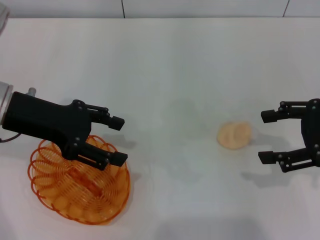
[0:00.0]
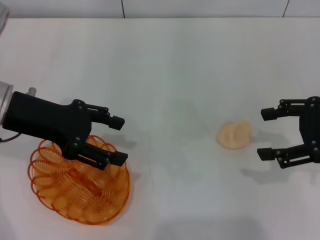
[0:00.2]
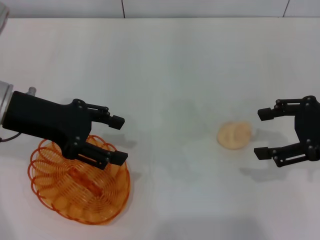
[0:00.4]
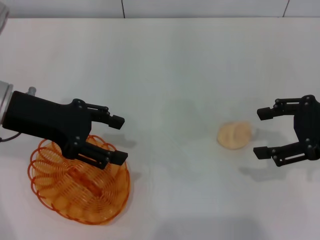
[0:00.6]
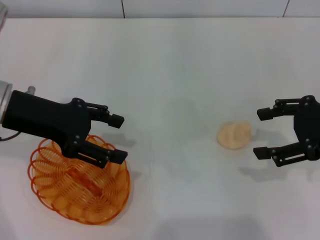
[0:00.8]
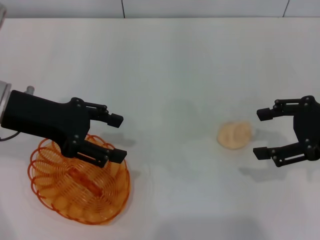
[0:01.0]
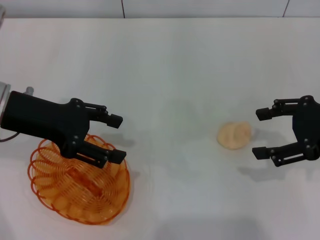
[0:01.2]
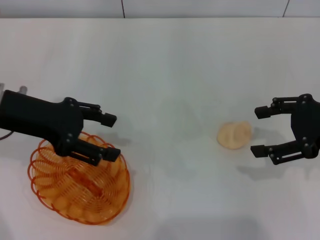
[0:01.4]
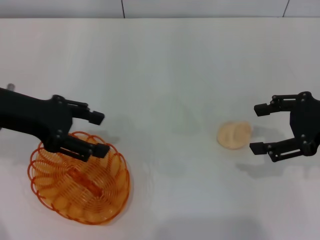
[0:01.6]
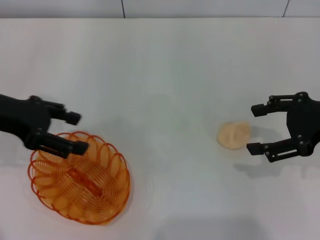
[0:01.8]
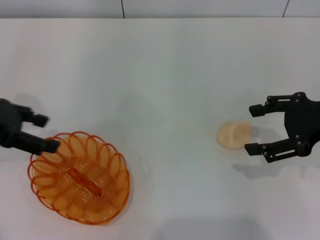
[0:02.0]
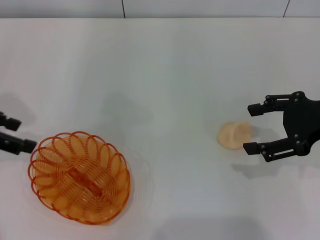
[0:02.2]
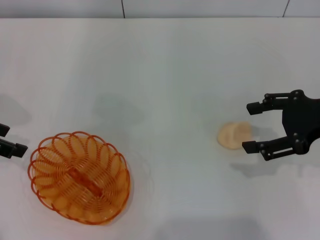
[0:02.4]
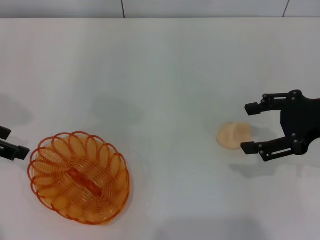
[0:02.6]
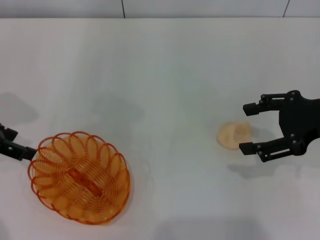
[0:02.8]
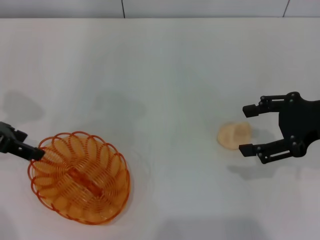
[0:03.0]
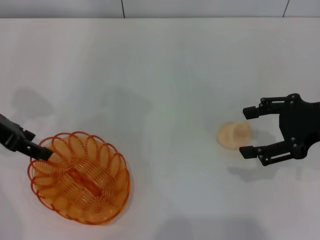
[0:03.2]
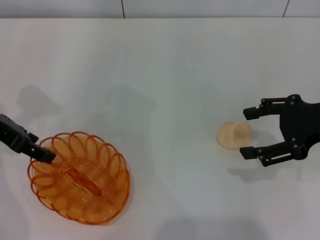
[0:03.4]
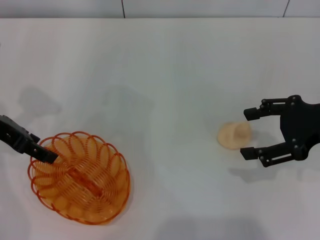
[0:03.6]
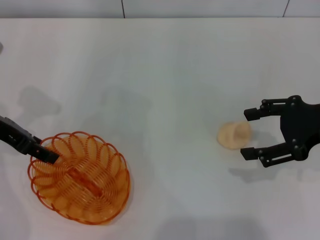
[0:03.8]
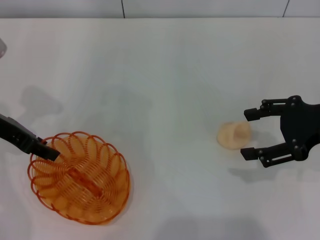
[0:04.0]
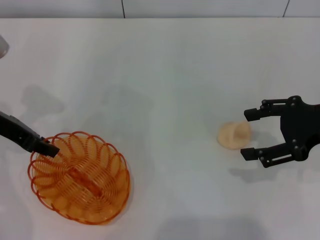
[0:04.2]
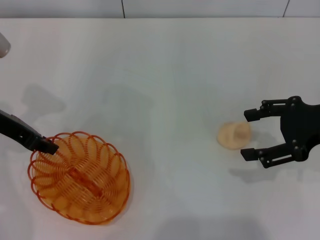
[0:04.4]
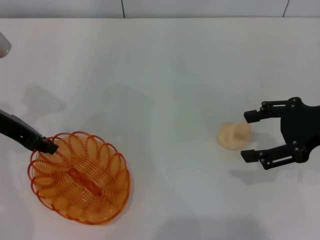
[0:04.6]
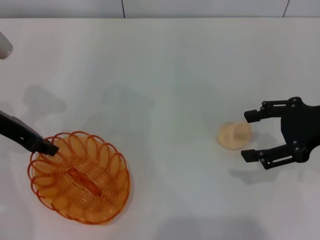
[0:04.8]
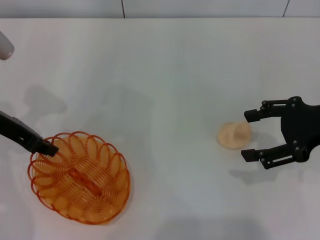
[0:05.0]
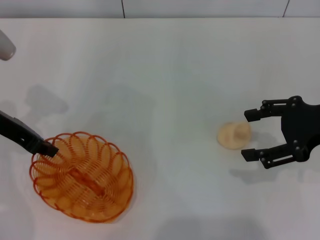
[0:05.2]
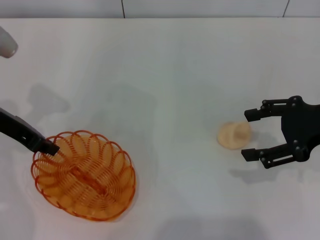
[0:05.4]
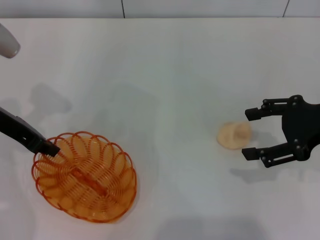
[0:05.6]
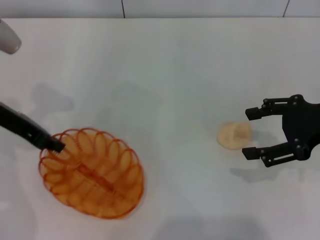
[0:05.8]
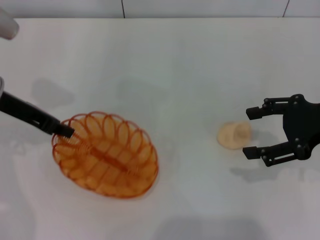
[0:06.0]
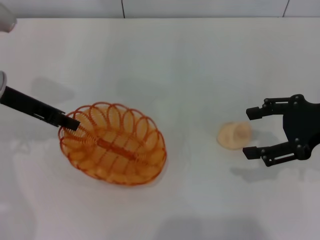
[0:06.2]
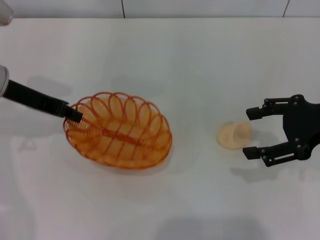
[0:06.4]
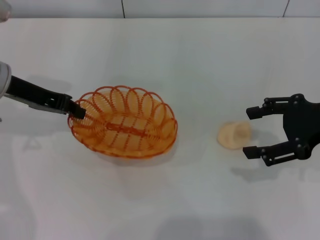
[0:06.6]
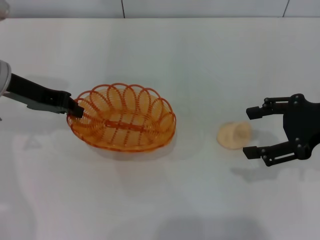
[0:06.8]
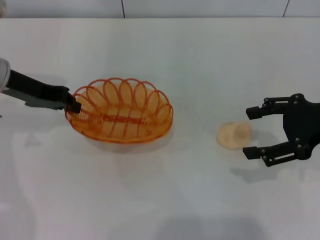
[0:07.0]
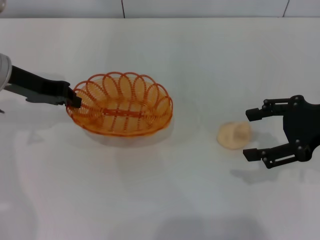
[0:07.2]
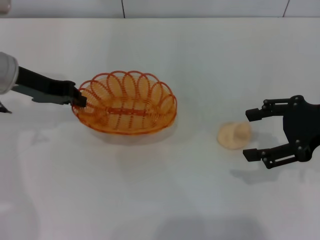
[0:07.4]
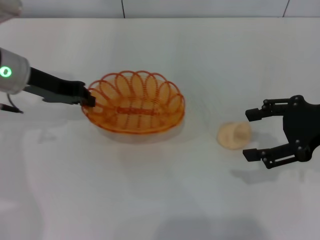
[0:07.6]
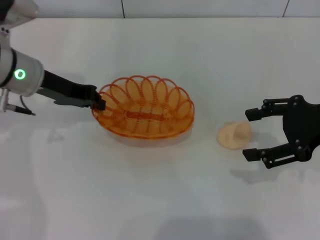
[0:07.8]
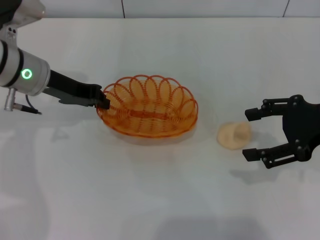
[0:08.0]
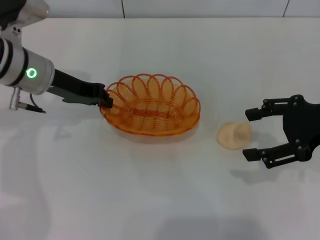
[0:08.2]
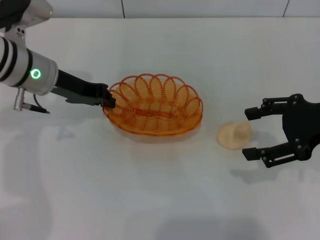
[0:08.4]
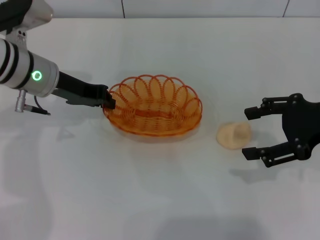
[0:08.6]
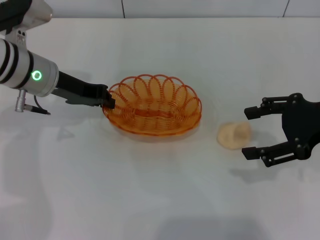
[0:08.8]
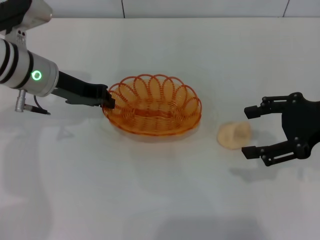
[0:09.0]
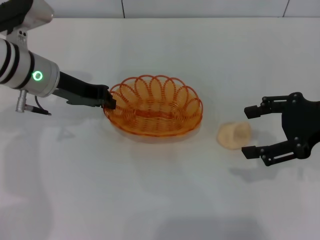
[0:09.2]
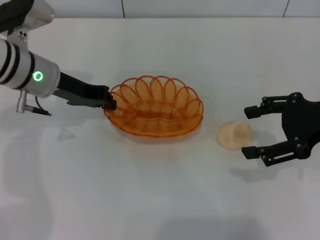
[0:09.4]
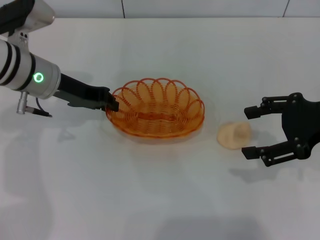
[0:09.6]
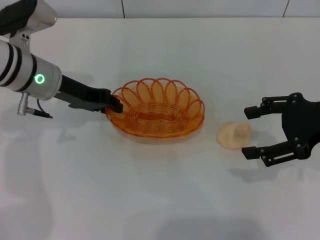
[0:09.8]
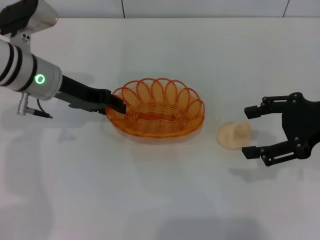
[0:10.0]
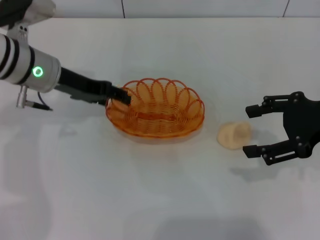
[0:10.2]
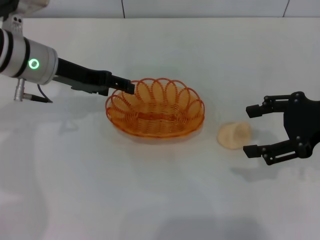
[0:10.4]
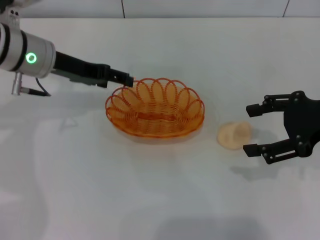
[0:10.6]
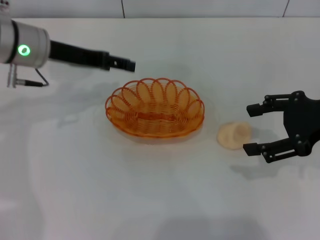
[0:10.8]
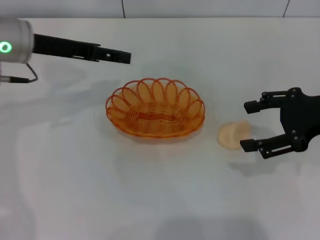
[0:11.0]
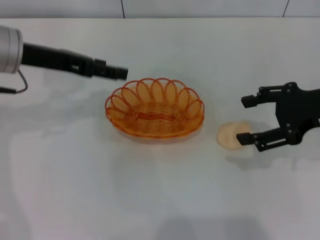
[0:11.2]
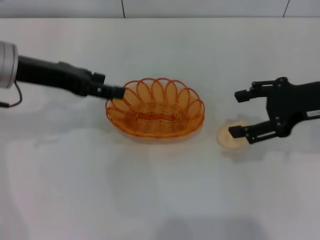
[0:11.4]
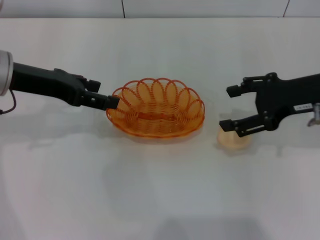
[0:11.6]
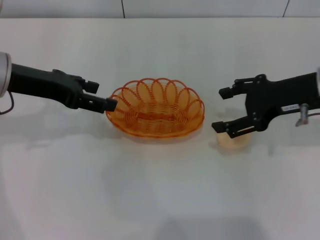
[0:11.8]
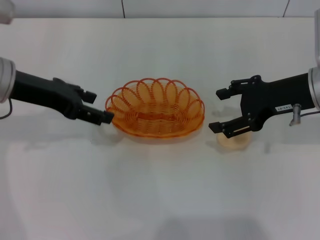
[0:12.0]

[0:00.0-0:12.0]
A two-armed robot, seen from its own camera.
Step, 0:00.0 to 0:06.8: Pick up the basket with the left gripper.
Step, 0:07.0 to 0:10.6: Place the basket in the center of view with the left gripper.
0:00.0 to 0:01.6: There are only small adjustments of the grippers.
0:01.6 to 0:03.0: The left gripper shifts roughly 5 cm to the left.
0:03.0 to 0:04.4: The left gripper closes up.
0:04.4 to 0:06.0: The left gripper closes its fingers.
0:07.6 to 0:09.0: The grippers stay close to where they were, moving slightly.
0:09.0 to 0:10.4: The left gripper opens up.
0:10.4 to 0:12.0: The left gripper changes place by about 5 cm. Meanwhile the right gripper shifts about 5 cm forward.

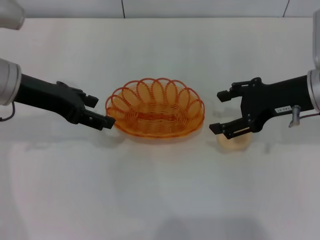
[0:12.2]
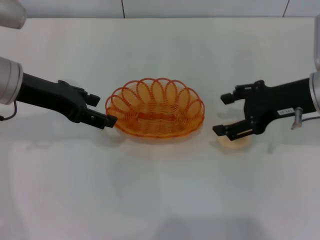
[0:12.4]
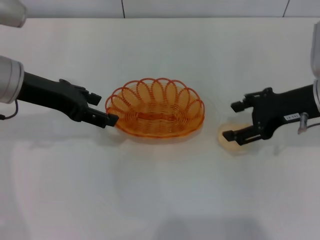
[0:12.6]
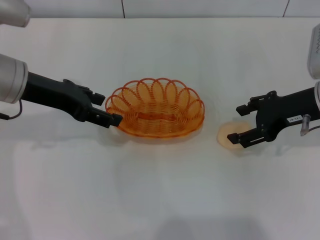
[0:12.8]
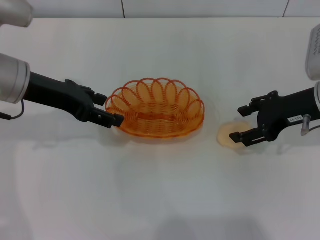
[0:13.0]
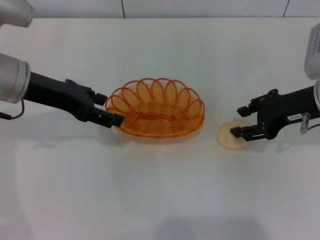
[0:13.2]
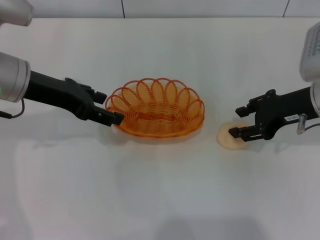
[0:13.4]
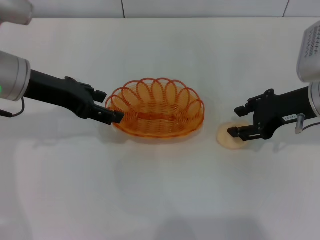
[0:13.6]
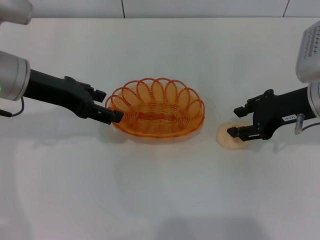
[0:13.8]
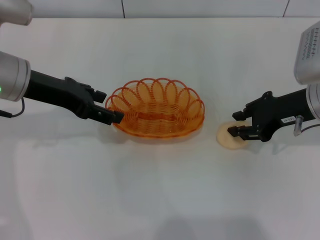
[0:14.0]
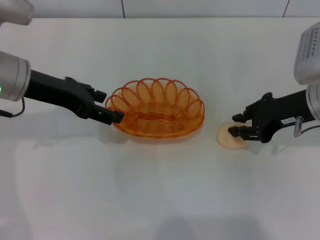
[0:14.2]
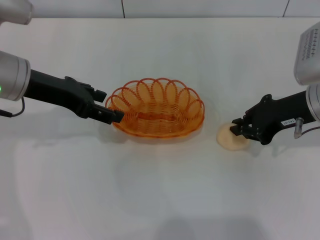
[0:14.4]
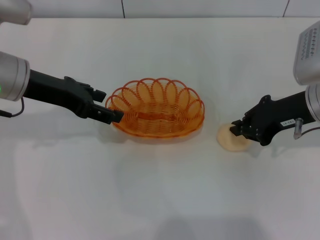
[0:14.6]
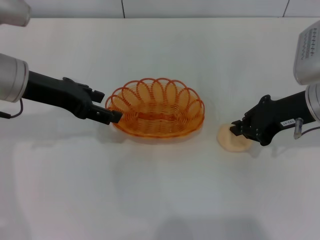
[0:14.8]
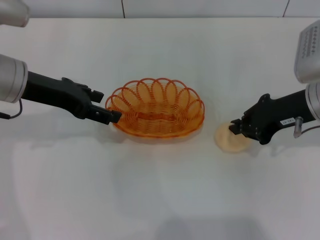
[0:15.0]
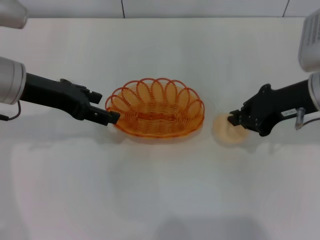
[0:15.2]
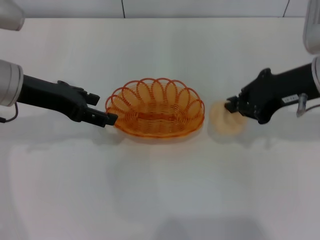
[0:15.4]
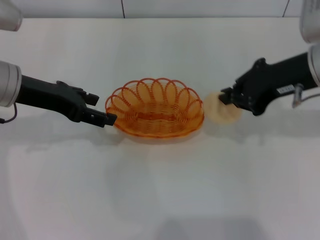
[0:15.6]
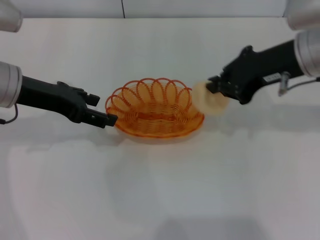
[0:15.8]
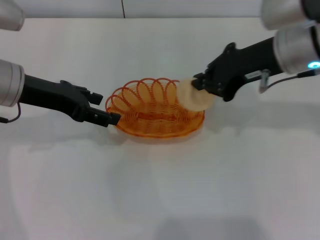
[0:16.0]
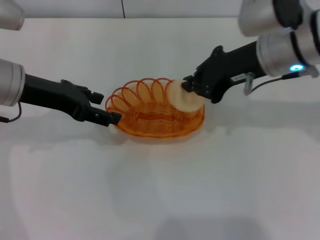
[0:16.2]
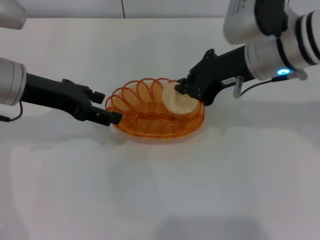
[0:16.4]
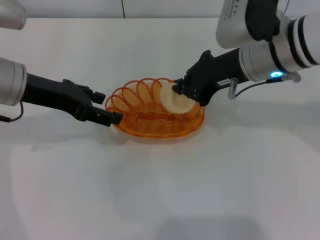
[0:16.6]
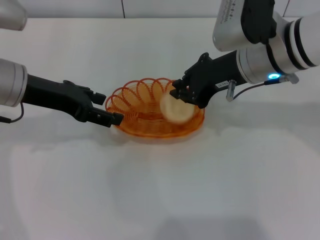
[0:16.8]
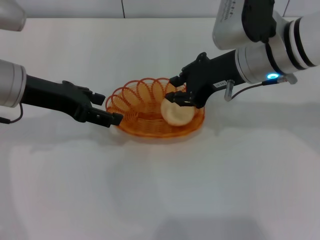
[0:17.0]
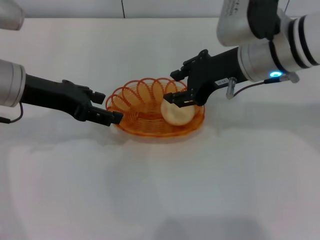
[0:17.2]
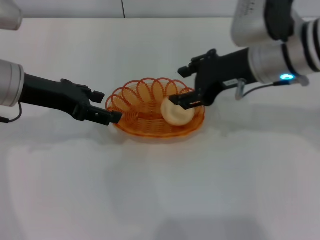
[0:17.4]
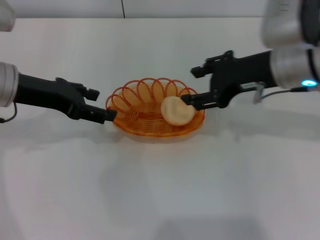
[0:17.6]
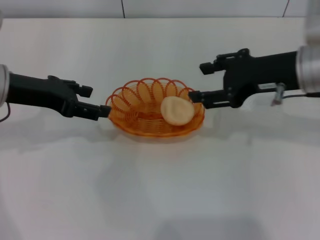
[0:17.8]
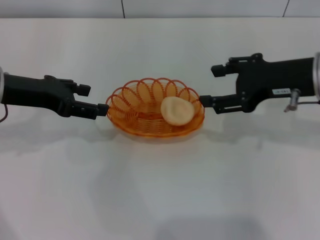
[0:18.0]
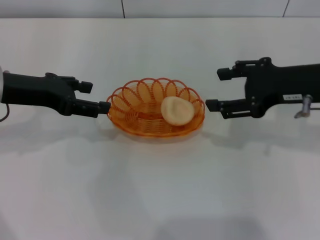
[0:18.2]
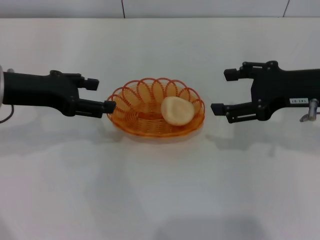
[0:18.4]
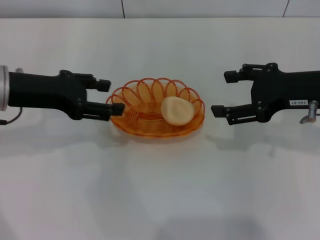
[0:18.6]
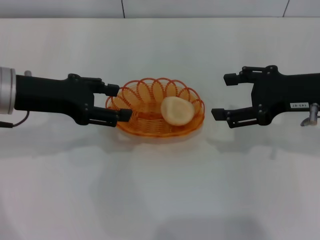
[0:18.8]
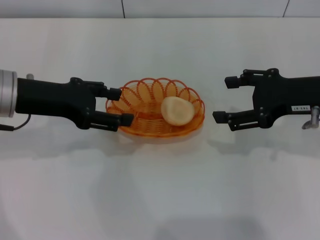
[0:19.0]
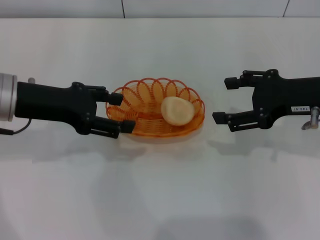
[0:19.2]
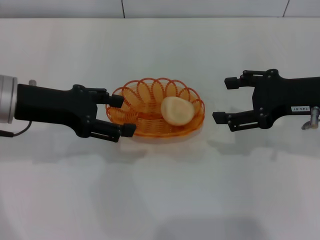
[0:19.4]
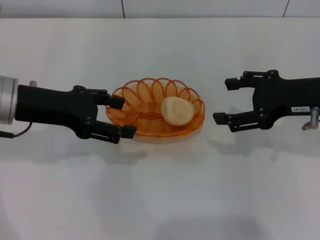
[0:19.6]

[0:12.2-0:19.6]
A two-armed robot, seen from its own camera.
Step, 0:12.2 to 0:15.6: Pick up the egg yolk pastry with the right gripper.
Step, 0:15.8 to 0:17.8: Place the egg yolk pastry into the basket with the right gripper.
0:12.2 to 0:13.6: The right gripper closes up.
0:13.6 to 0:15.2: The right gripper closes.
0:15.2 to 0:16.6: The right gripper shifts some 10 cm to the left.
0:16.6 to 0:18.2: The right gripper shifts about 10 cm to the right and backward, and opens up.
0:18.2 to 0:19.6: The grippers move only a little.
